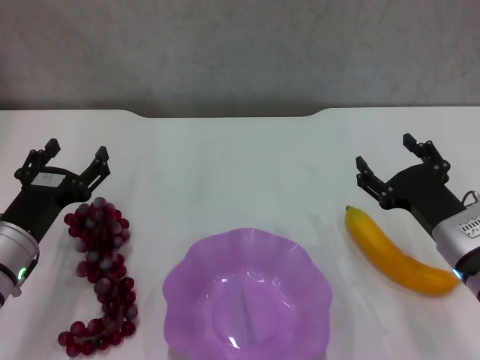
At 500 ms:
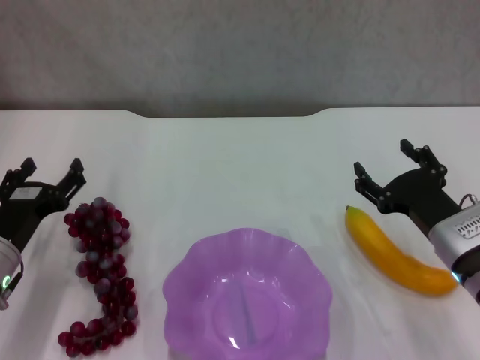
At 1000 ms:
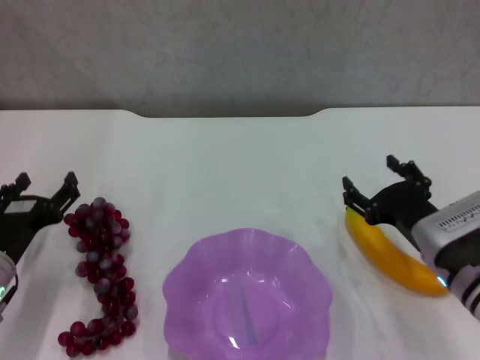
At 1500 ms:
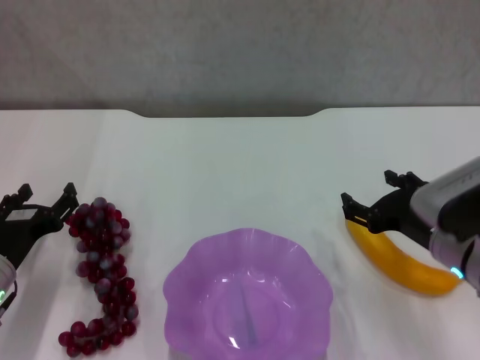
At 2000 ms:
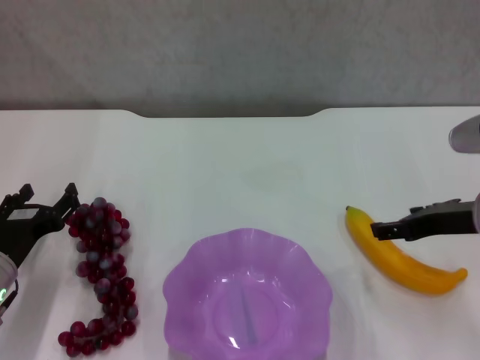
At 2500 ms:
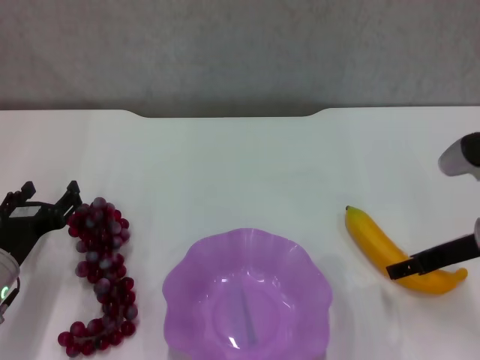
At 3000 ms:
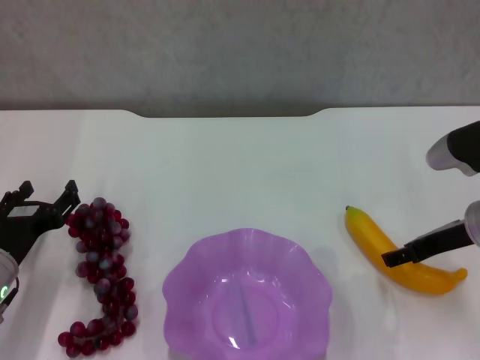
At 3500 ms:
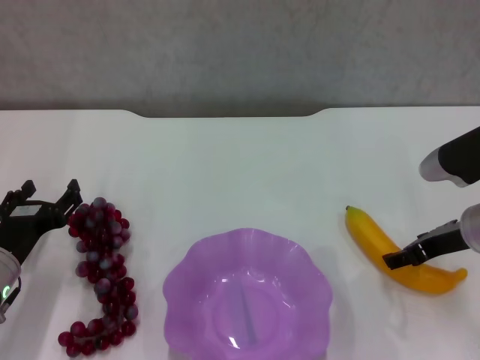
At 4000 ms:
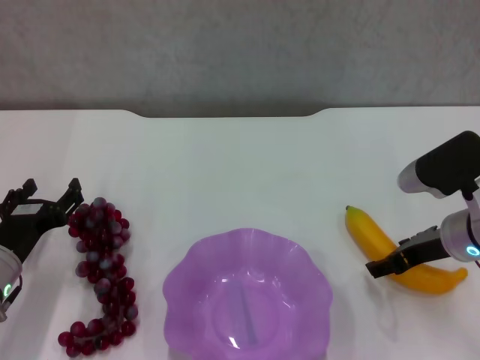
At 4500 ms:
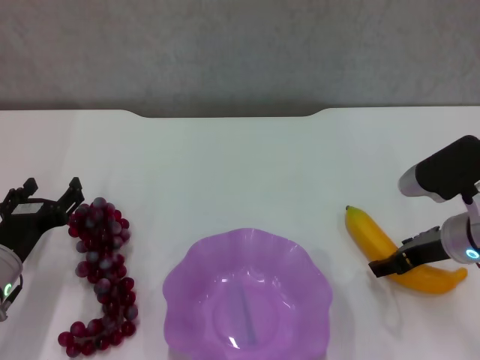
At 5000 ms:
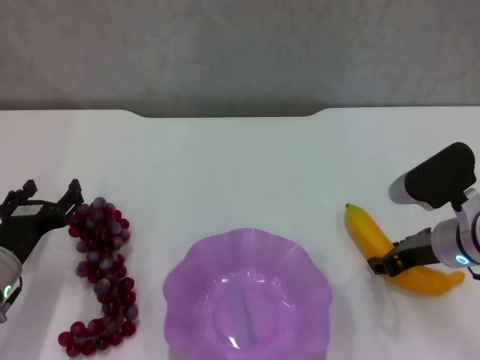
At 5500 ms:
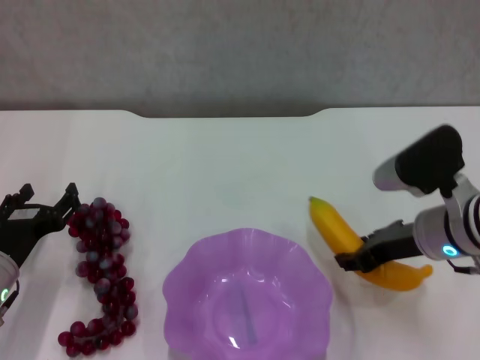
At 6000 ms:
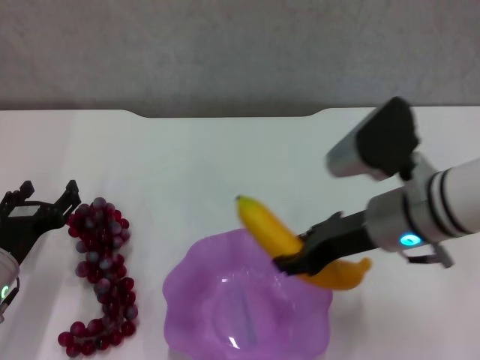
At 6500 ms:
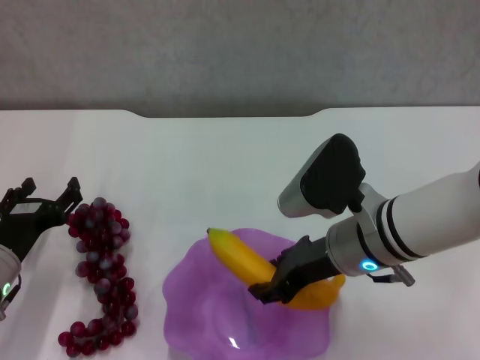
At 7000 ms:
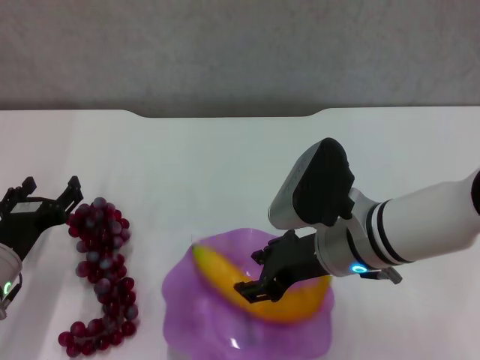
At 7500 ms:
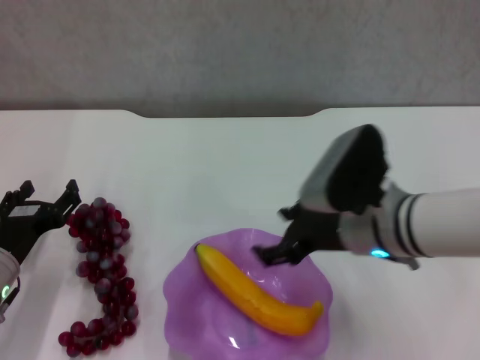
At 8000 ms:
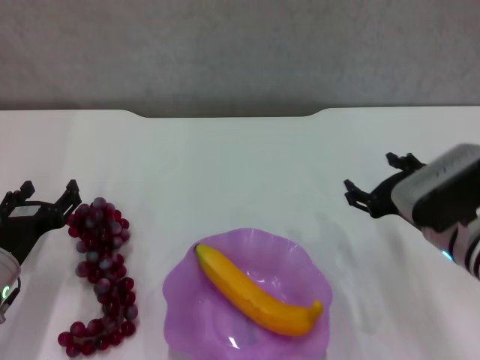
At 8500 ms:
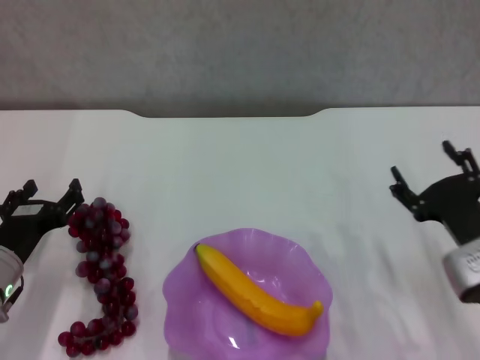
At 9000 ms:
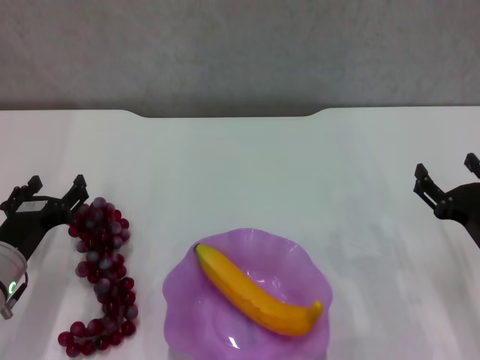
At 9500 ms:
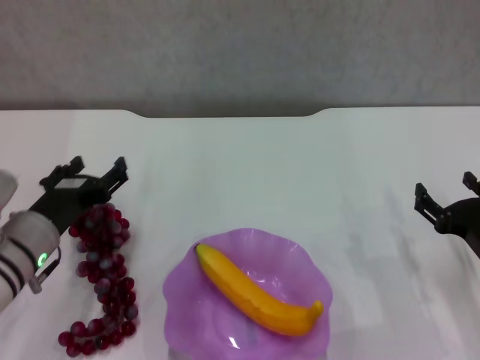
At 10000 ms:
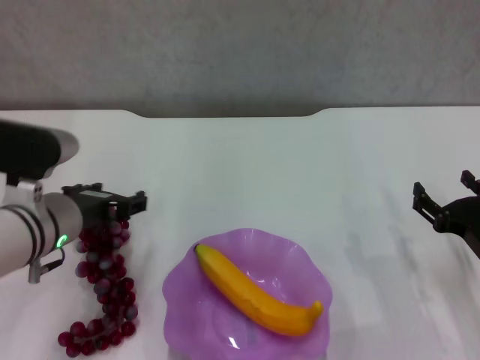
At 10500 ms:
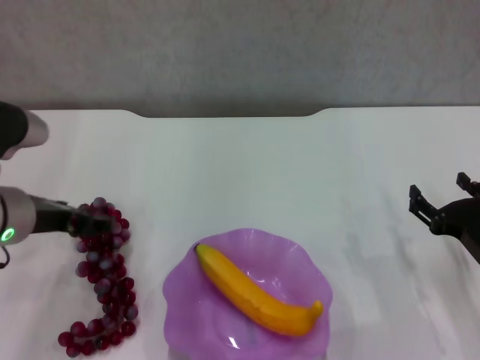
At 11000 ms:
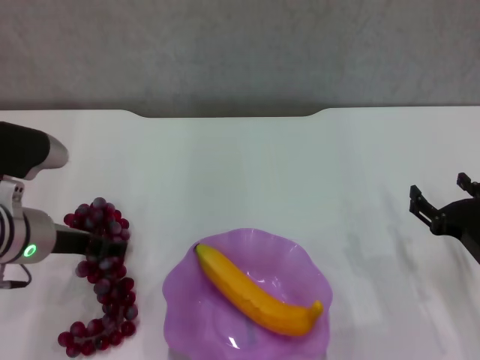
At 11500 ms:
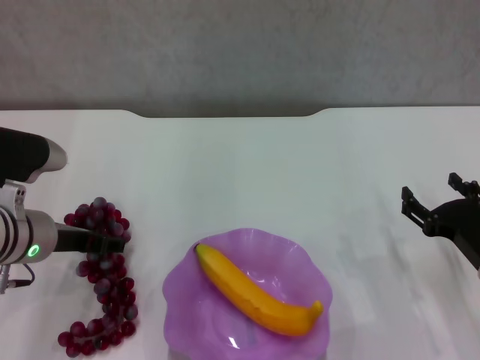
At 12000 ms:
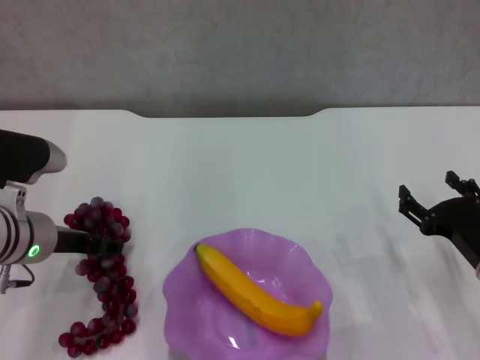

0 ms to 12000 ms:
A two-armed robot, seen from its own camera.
Step, 0 ms to 5000 ms: Grasp the banana with right gripper.
Step, 5500 ms to 7000 ms: Place the banana in the purple plate with right gripper.
0 ms to 2000 ms: The right gripper shifts about 10 cm upward.
2000 ms to 4000 ms: The right gripper moves downward, roughly 5 cm.
4000 ms to 6000 ms: The right gripper heads to the left and upward, covering approximately 10 cm, and closes up.
6000 ms to 8000 ms: The right gripper moves to the right and downward, about 10 cm, and opens up.
8000 ms to 10000 ms: The left gripper travels upward and to the right by roughly 10 cm; the right gripper goes approximately 10 cm to the right and downward.
10000 ms to 12000 ms: The grippers stay close to where they were, moving slightly.

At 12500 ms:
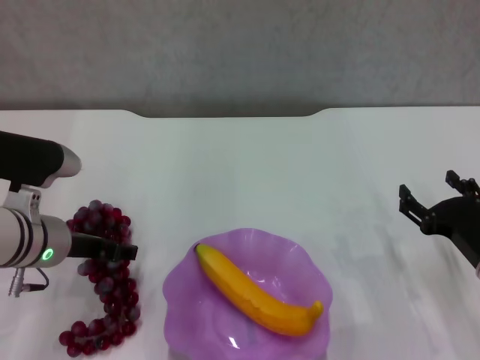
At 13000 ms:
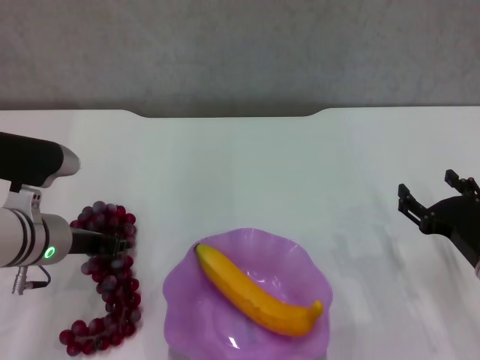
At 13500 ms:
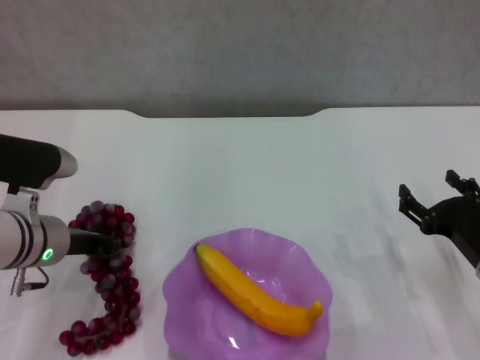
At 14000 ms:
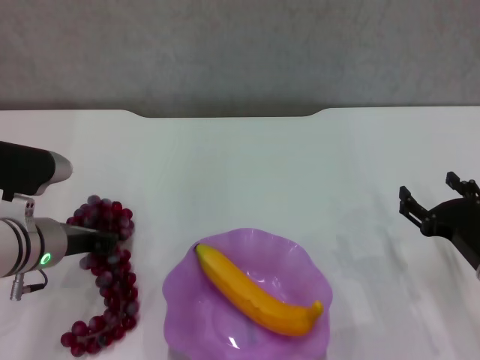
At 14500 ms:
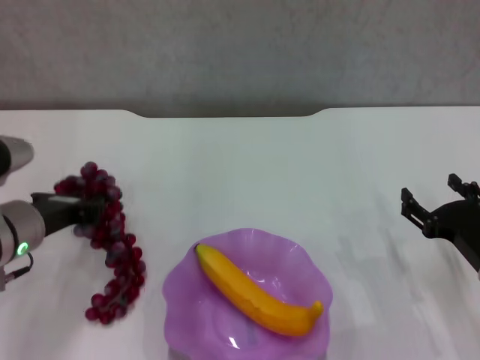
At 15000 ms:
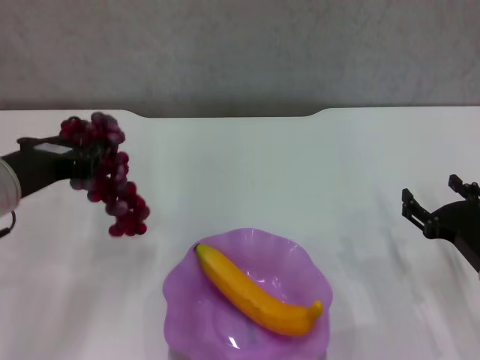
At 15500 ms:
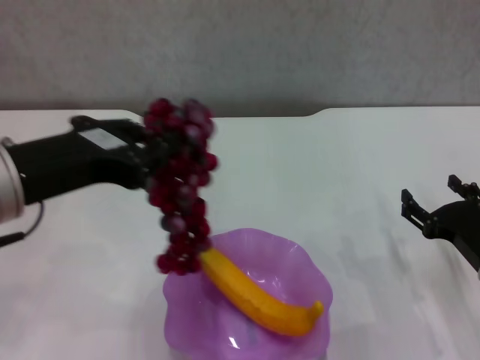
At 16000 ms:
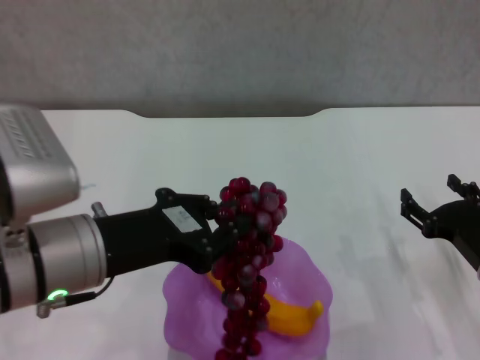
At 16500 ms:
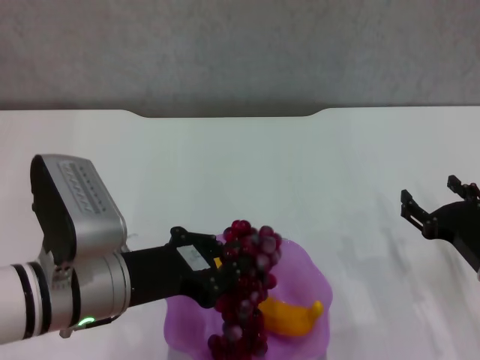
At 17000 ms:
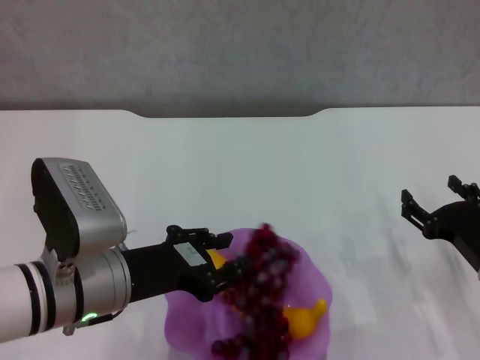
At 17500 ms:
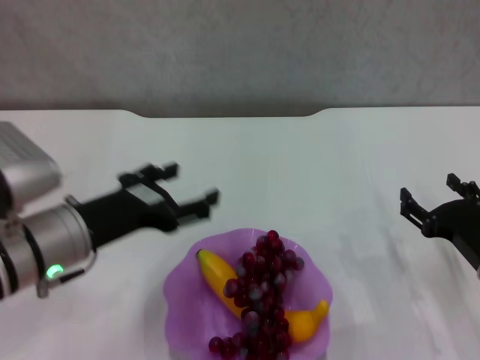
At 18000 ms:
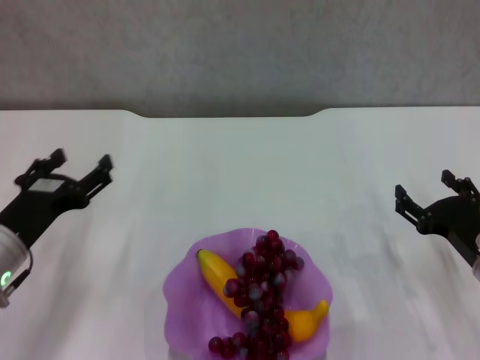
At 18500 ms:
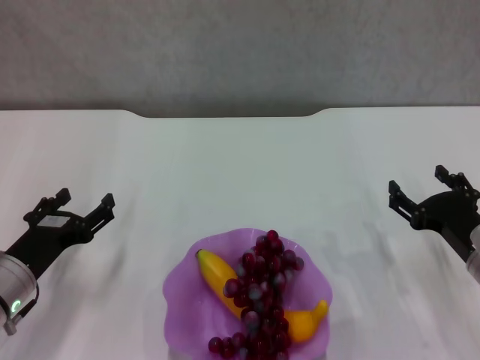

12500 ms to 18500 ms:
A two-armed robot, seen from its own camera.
Step, 13500 ms to 17000 ms: Place the grape in the purple plate with left gripper.
12500 ms to 14500 ms: The left gripper closes its fingers.
14500 ms to 16500 ms: The left gripper travels to the right and backward by approximately 10 cm, and goes upward and returns, roughly 15 cm each way.
16500 ms to 18500 ms: The left gripper is displaced to the left and downward by some 15 cm, and opens.
